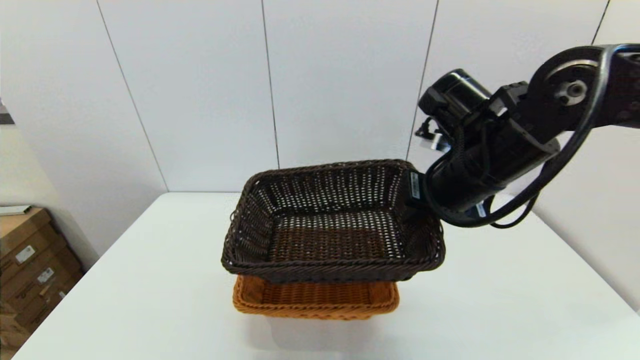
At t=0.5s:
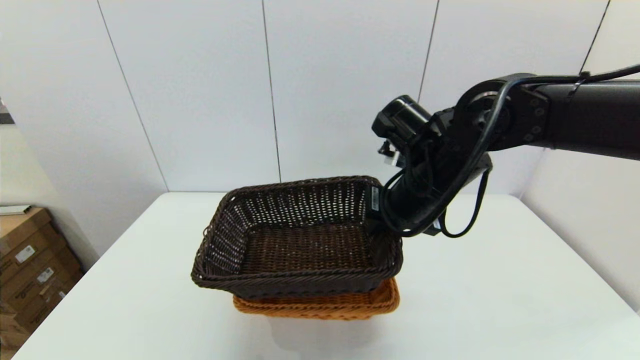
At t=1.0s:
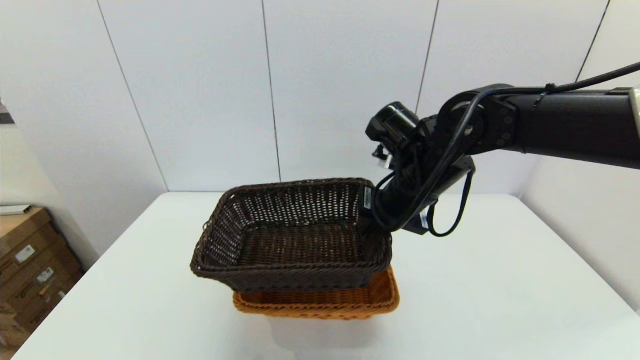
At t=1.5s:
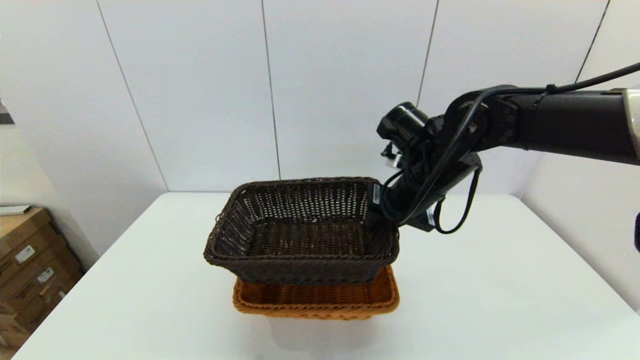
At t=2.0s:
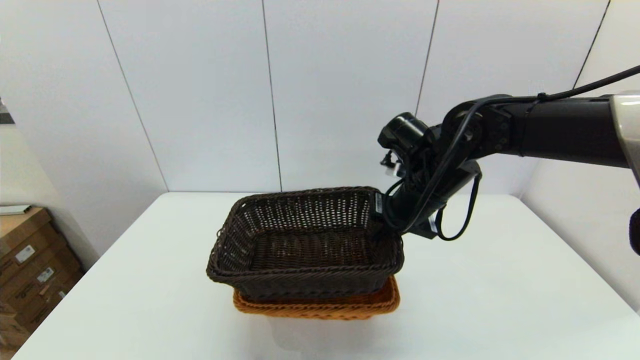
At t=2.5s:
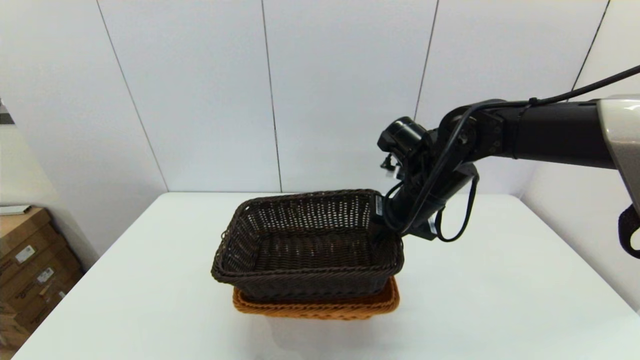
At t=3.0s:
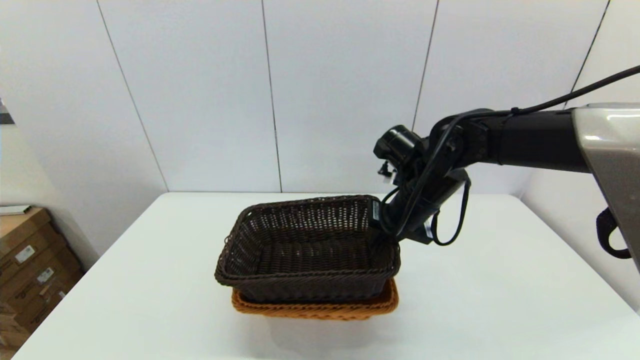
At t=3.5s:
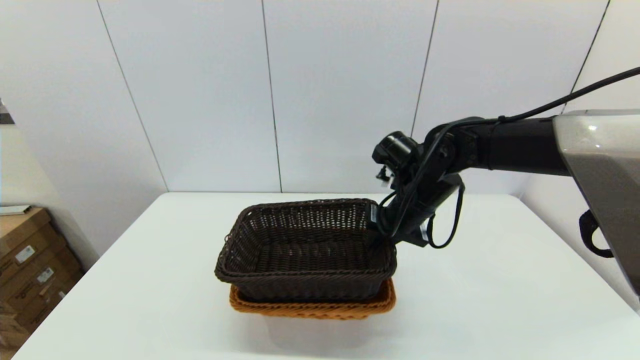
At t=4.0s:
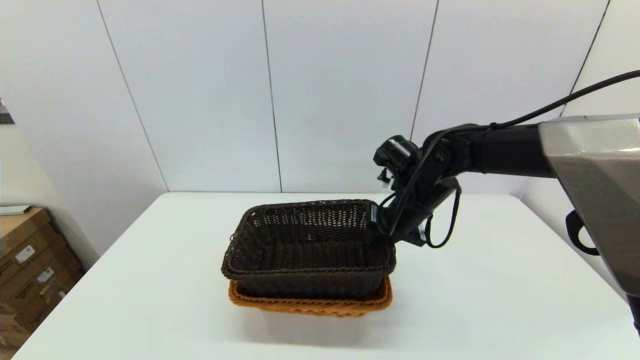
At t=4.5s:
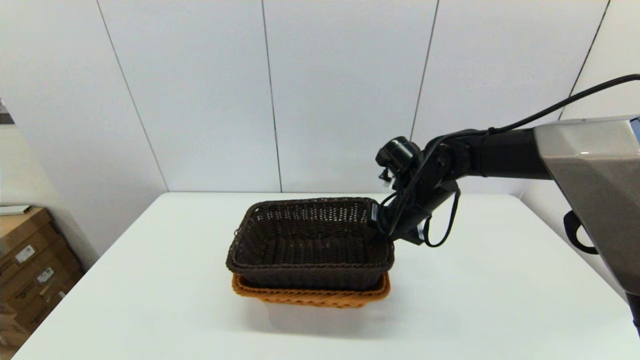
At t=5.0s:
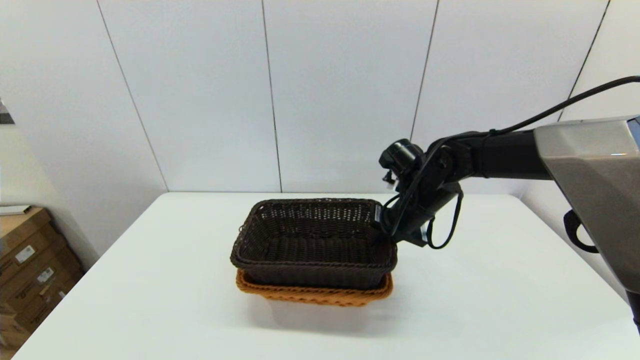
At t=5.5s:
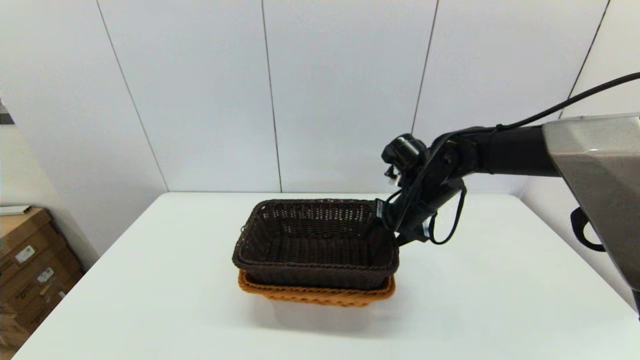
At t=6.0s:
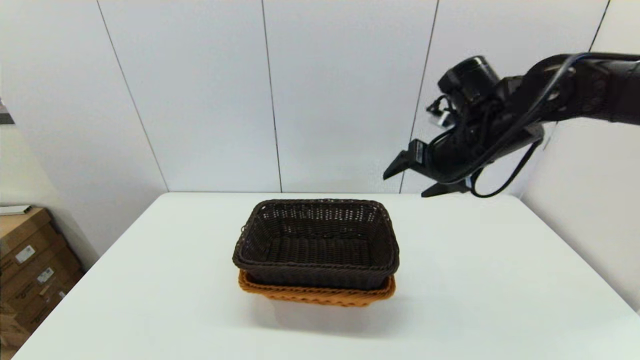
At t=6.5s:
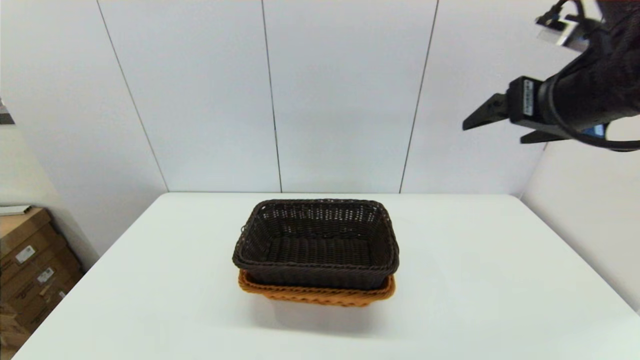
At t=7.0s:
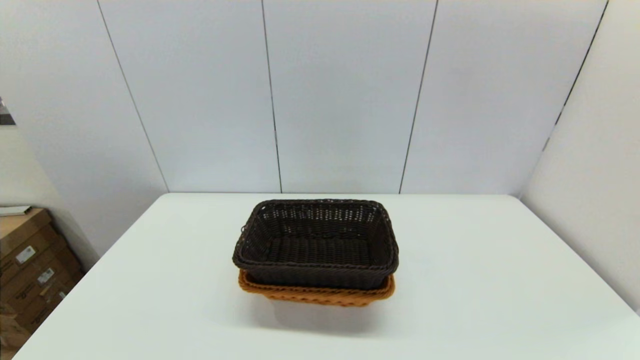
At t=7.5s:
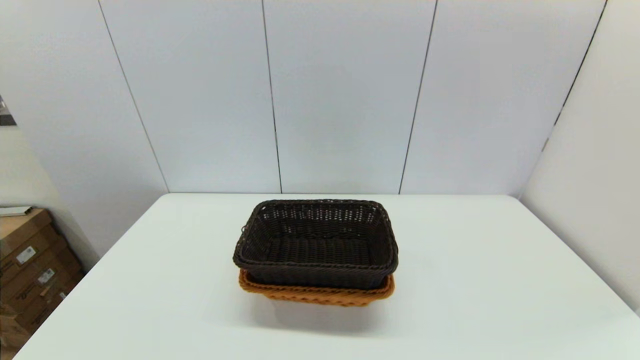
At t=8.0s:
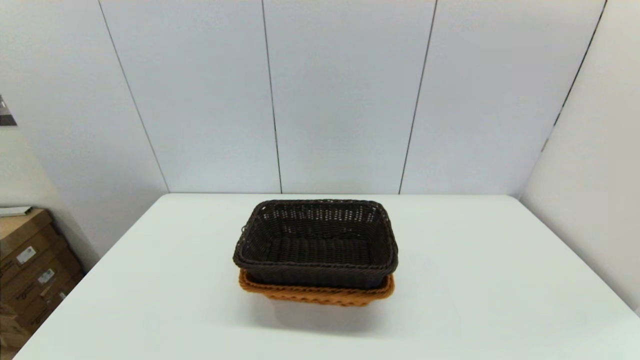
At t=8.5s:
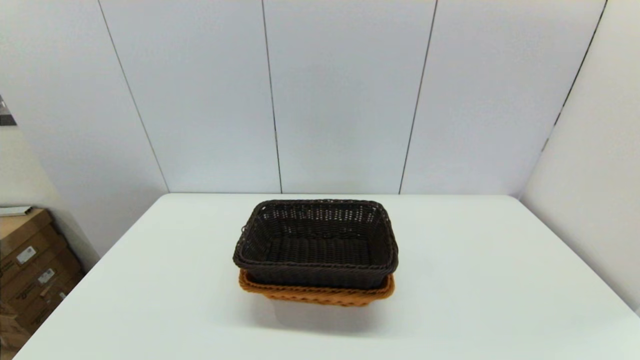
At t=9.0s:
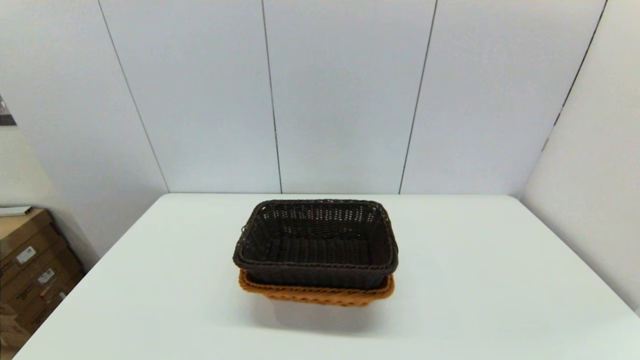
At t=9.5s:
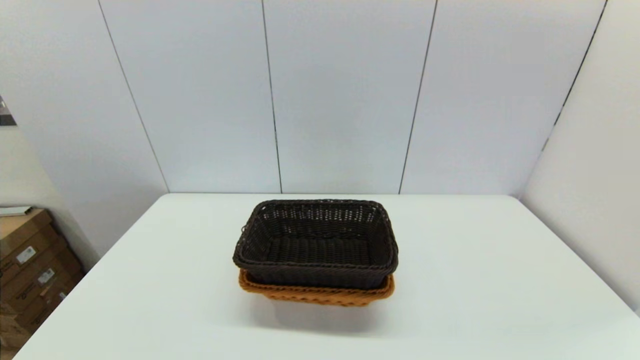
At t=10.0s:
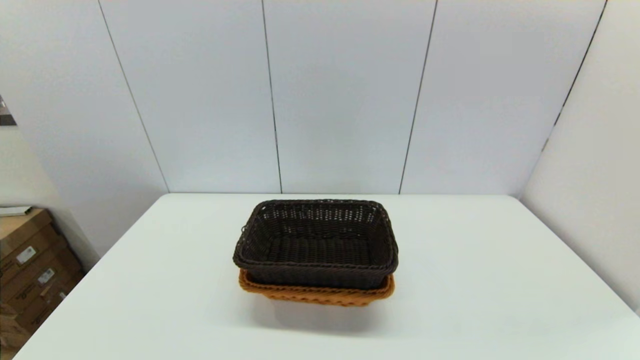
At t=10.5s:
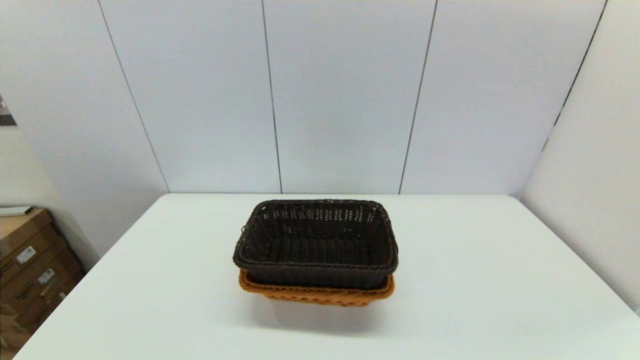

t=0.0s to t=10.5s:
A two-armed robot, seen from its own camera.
Task of the whole recording: stack a basket on top of another basket.
Step, t=0.0s to t=5.5s: Place the dark basket into the light color basket with the right gripper.
t=0.0s to t=2.0s: The right gripper goes roughly 10 cm downward and forward.
t=2.0s to t=4.0s: The right gripper changes place by about 5 cm.
t=4.0s to t=6.5s: The right gripper shifts some 25 cm upward, backward and to the right, and opens.
t=6.5s to t=8.5s: The right gripper moves backward and downward, some 35 cm.

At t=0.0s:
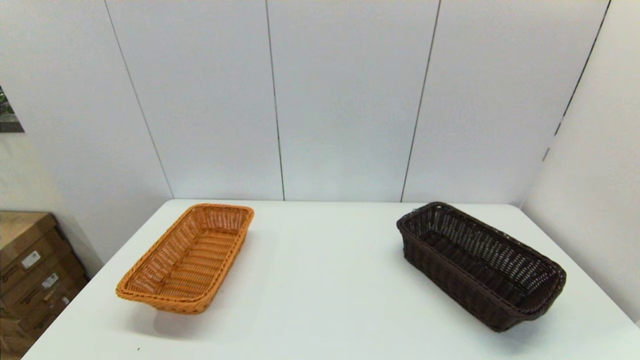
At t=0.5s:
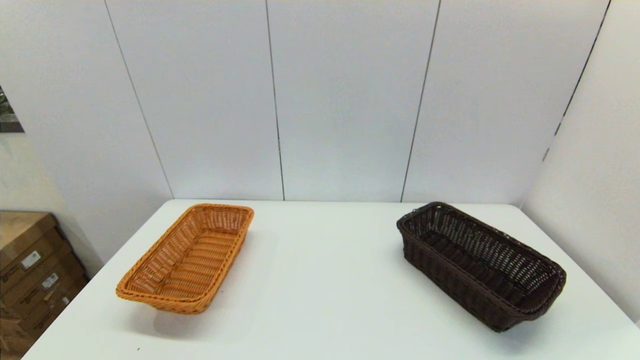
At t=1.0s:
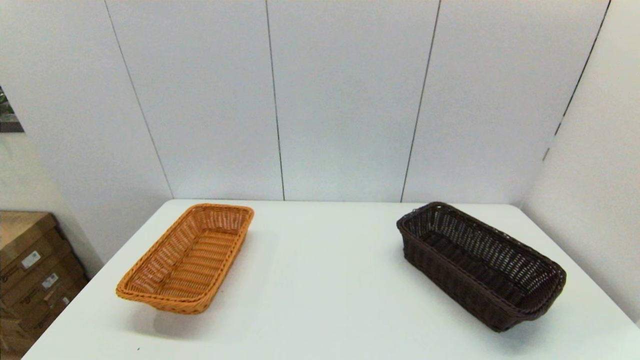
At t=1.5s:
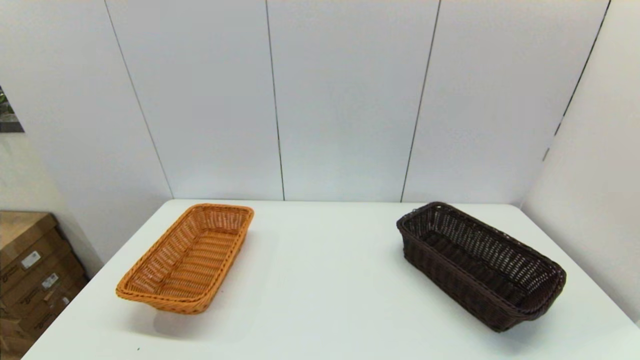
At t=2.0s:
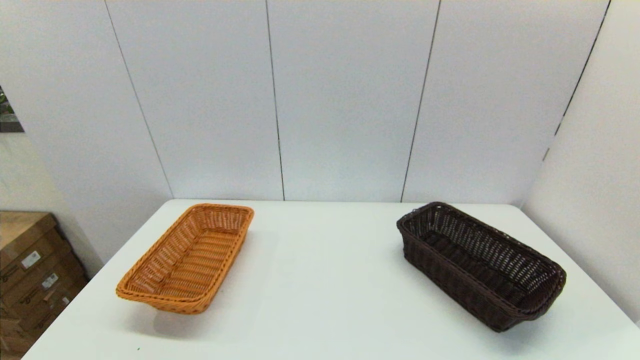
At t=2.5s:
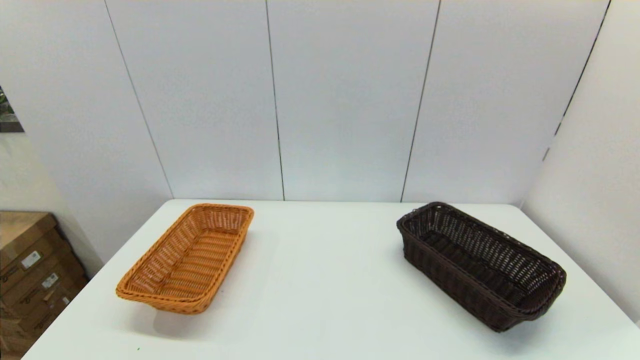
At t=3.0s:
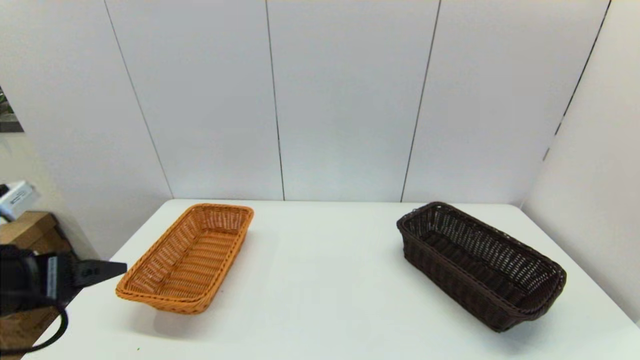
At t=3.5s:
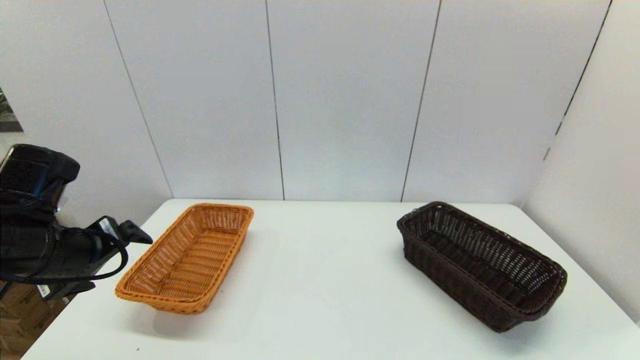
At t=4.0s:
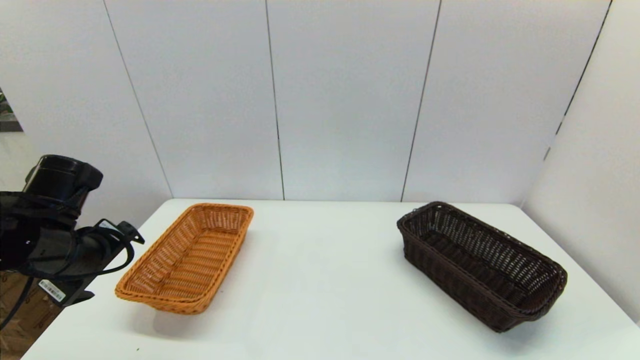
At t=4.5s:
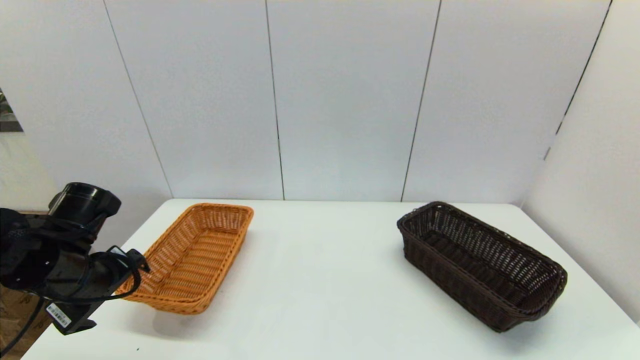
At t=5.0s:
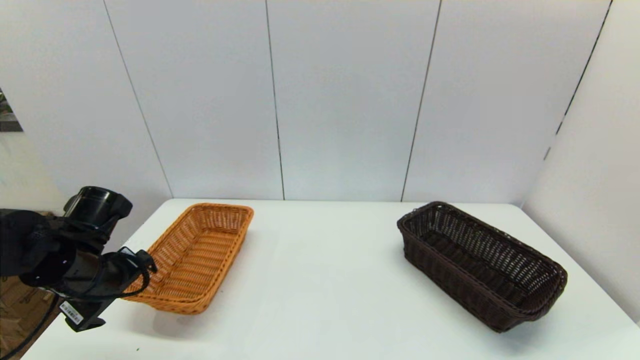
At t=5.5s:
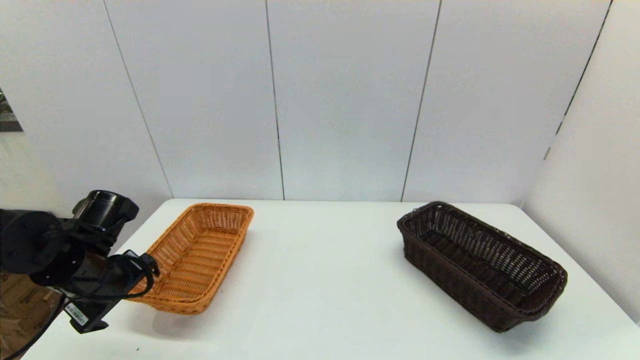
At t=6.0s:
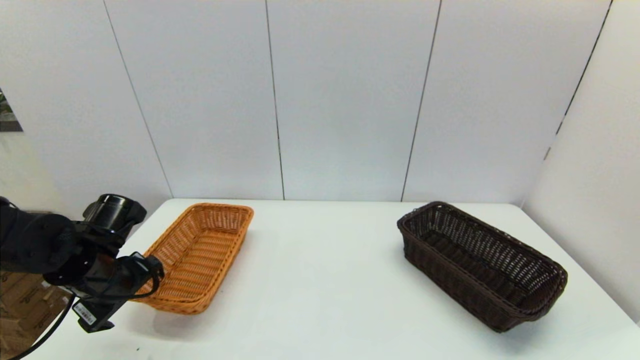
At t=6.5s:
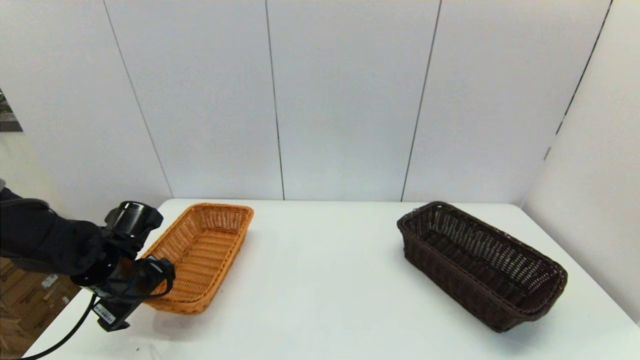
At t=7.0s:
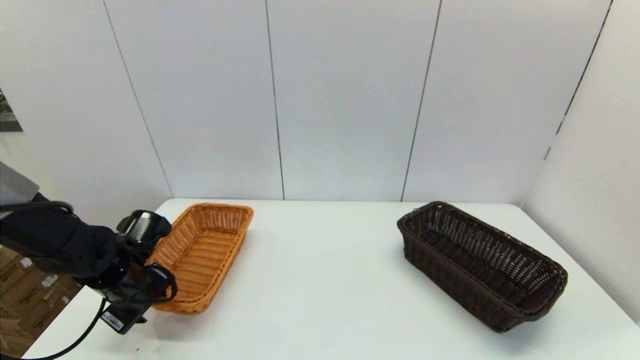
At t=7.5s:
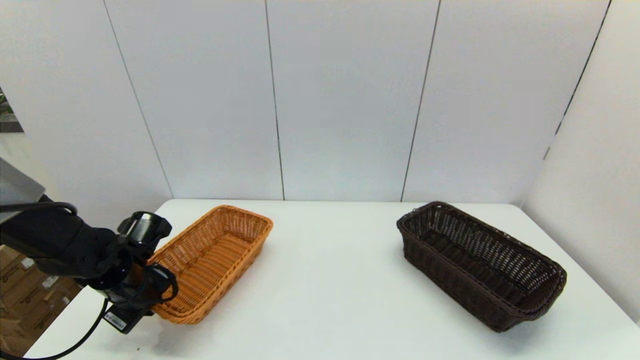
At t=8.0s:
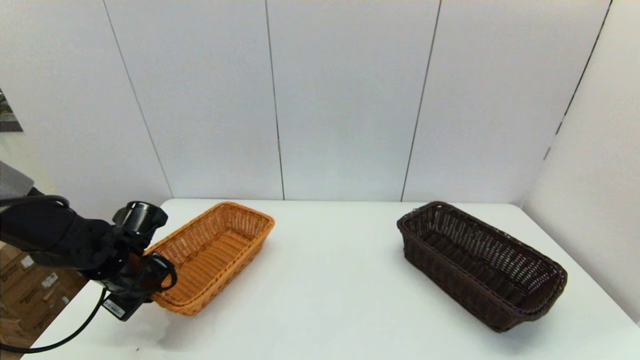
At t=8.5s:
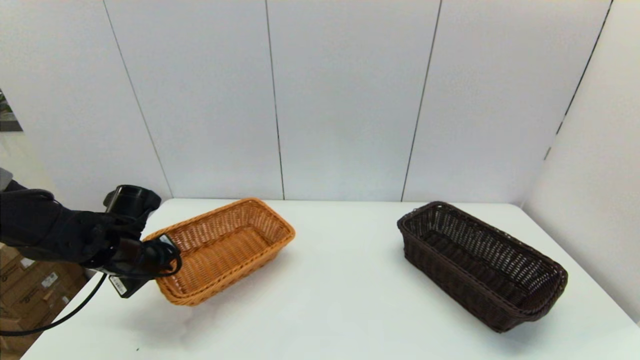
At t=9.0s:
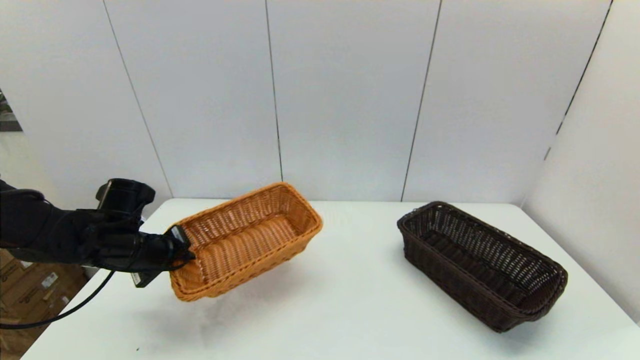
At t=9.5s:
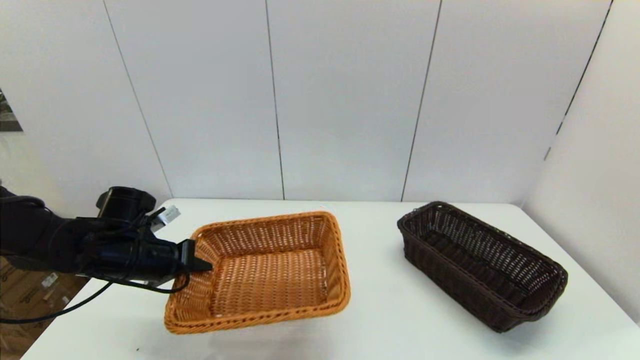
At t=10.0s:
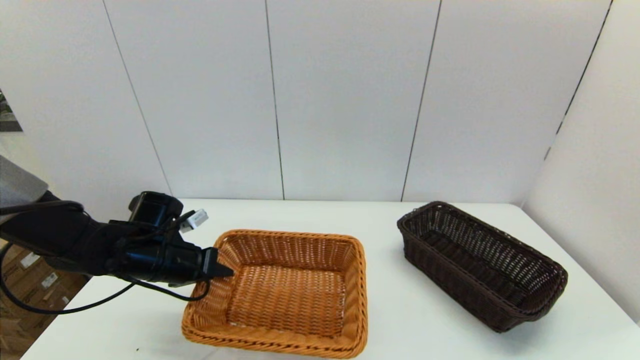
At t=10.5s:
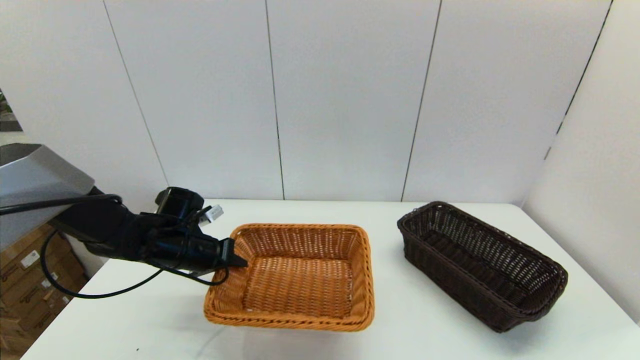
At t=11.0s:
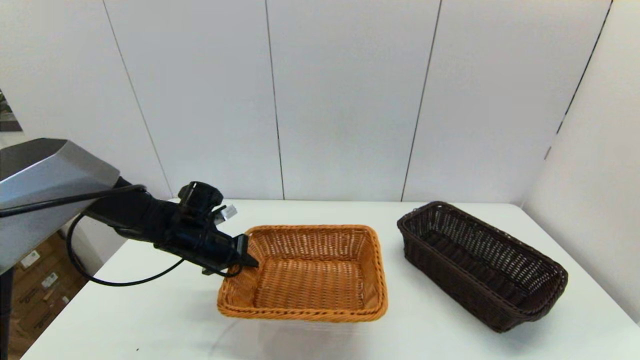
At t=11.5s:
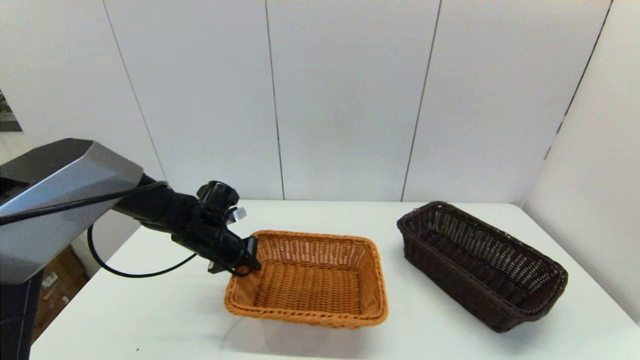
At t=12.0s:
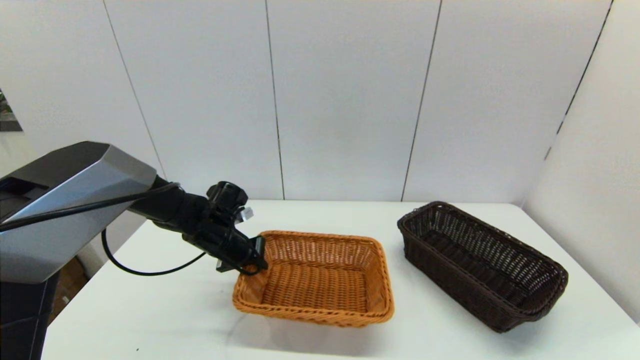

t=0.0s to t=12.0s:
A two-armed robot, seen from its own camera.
Task of the whole recording: stack a basket on top of another basket.
Step, t=3.0s to t=7.0s: Grasp the light basket with the left gripper.
t=2.0s to t=4.0s: The left gripper is displaced forward by roughly 25 cm.
t=4.0s to t=6.0s: The left gripper travels downward by roughly 5 cm.
t=6.0s to t=8.0s: The left gripper moves approximately 5 cm, and closes.
t=10.0s to t=12.0s: The left gripper travels to the right and forward by roughly 10 cm.
